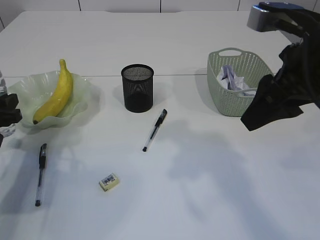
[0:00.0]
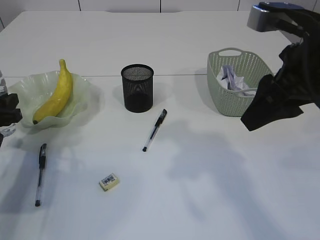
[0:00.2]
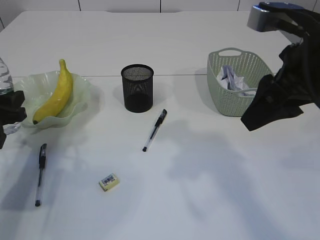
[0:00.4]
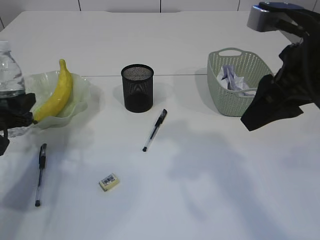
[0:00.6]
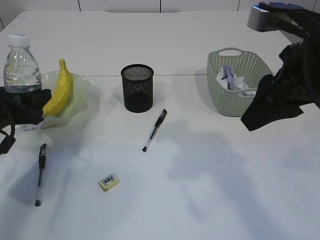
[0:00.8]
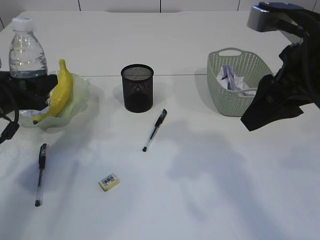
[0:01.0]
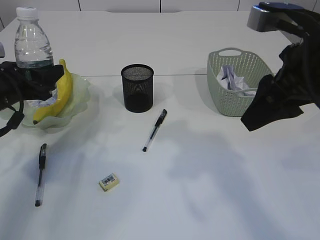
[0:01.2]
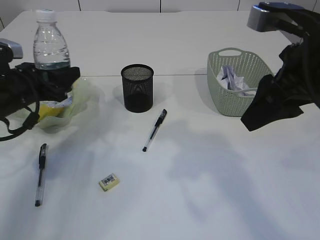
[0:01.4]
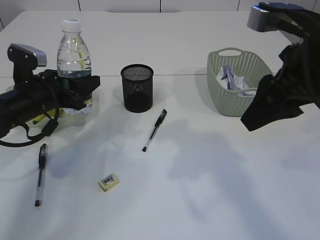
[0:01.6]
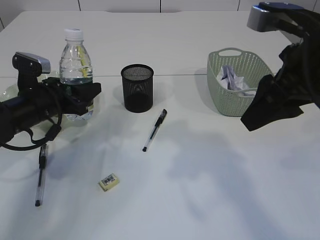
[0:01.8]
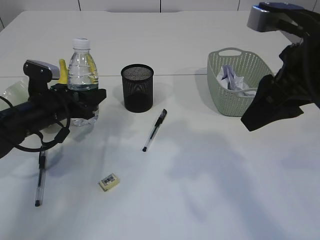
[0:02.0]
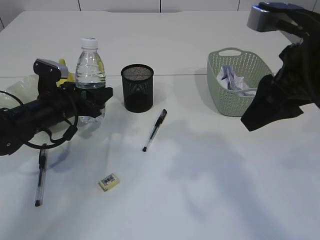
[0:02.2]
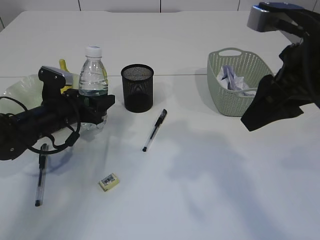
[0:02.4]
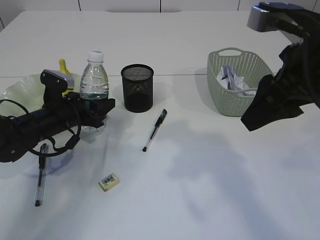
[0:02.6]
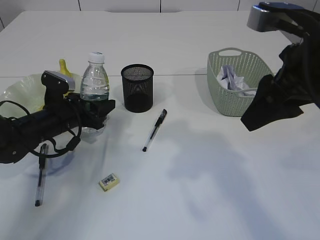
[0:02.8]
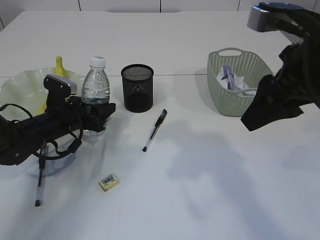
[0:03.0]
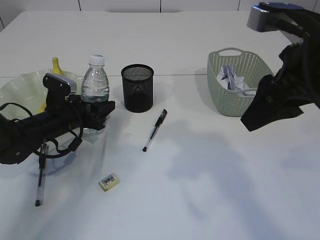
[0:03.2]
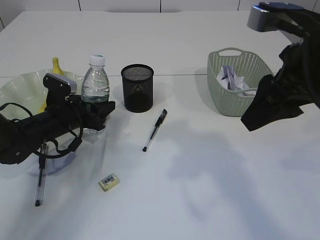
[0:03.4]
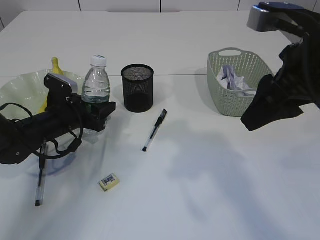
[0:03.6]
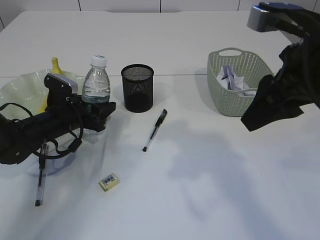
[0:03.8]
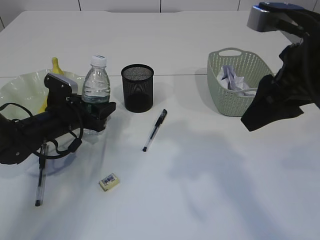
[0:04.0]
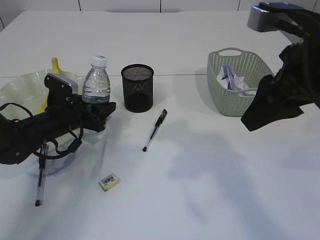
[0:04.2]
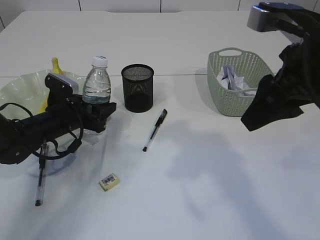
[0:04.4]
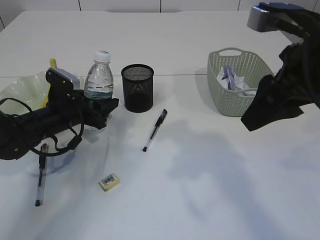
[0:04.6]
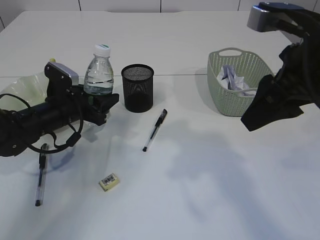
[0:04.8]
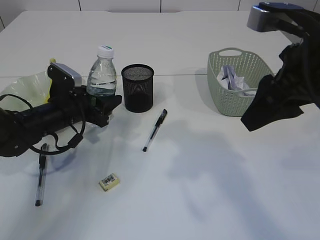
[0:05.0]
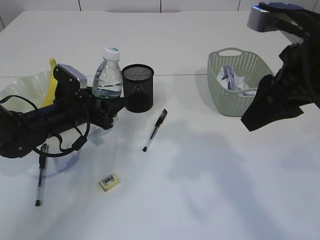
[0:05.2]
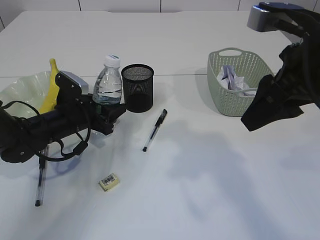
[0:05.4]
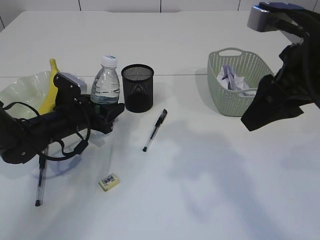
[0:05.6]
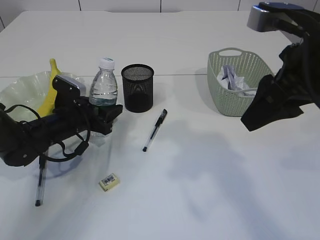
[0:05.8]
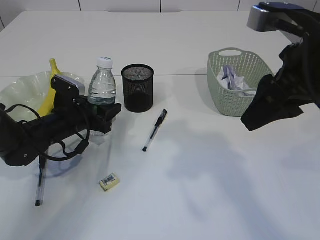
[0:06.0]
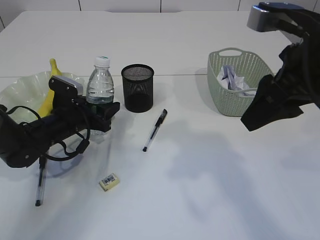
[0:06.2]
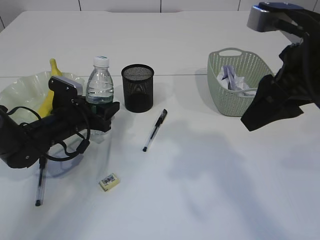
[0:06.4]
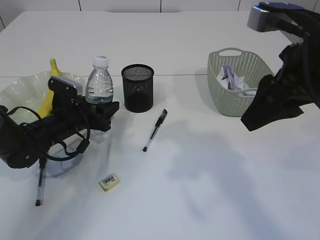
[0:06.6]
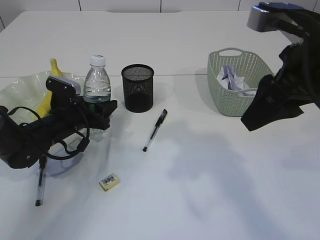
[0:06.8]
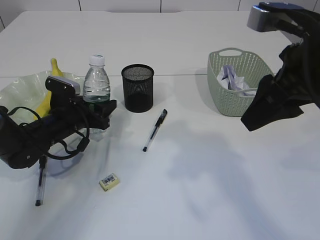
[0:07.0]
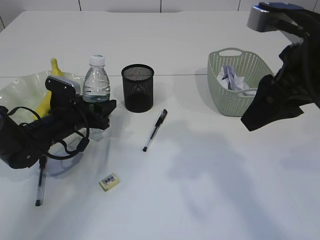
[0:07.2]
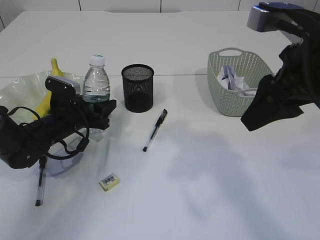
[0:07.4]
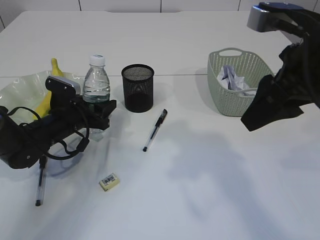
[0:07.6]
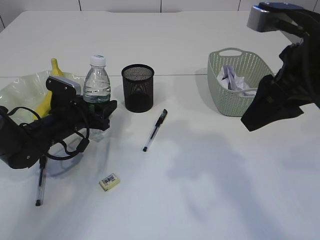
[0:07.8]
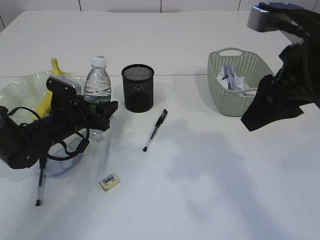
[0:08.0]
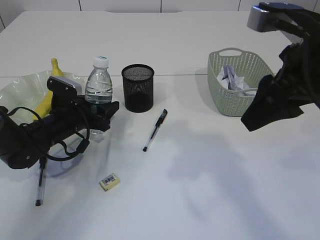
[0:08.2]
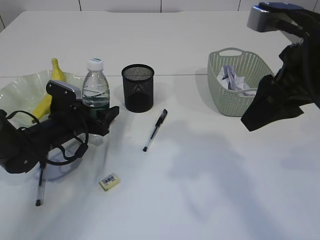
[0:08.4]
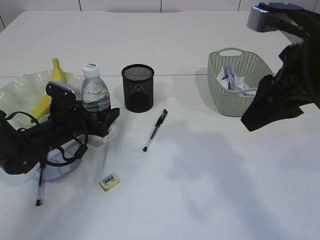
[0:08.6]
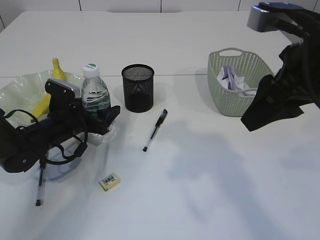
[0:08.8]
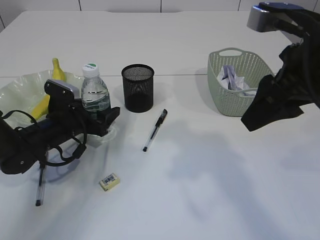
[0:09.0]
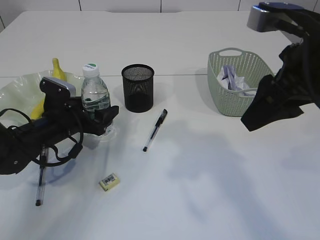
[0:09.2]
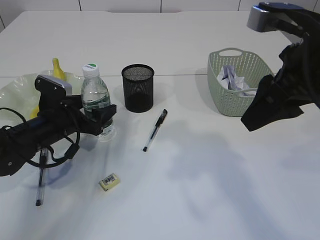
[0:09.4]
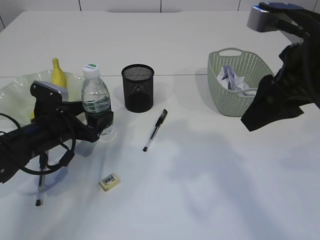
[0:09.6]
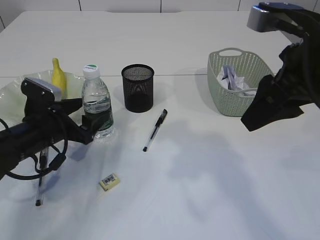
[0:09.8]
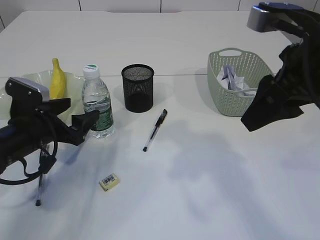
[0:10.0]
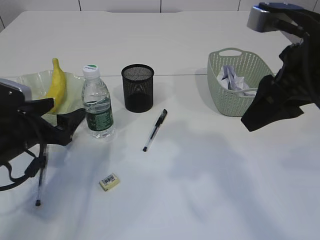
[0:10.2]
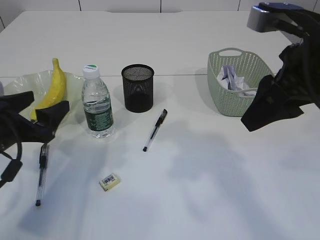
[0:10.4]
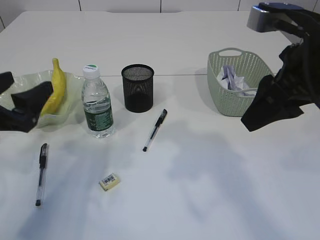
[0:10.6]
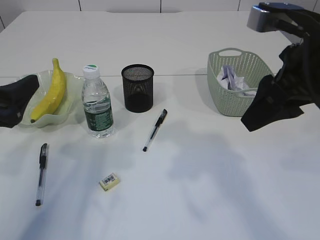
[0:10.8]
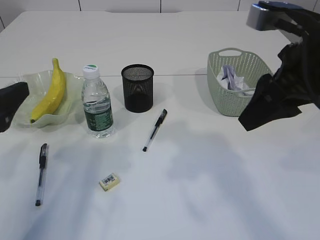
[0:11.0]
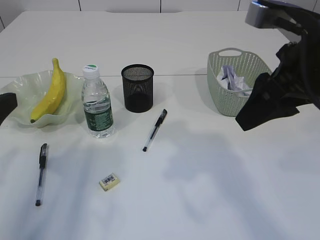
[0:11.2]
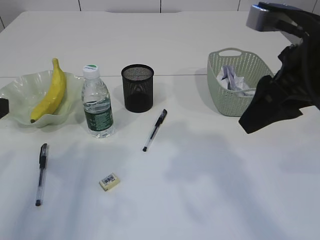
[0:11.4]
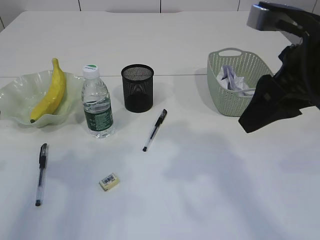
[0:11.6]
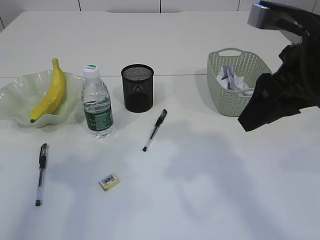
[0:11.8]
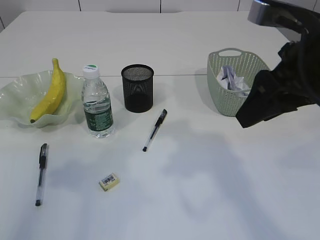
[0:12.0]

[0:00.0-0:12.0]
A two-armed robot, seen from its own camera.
Step, 0:00.0 to 0:10.2: Place the bottle.
0:00.0 to 0:01.6: The left gripper moves to the right and forward, approximately 10 cm.
0:01.6 to 0:03.0: The left gripper travels downward by about 10 cm.
0:03.0 to 0:04.4: Neither gripper changes place.
0:04.4 to 0:07.6: The grippers move only a little.
0:07.6 to 0:09.0: The left gripper opens its fingers.
0:09.0 to 0:10.4: The left gripper is displaced backward and upward by some 15 cm.
0:10.4 to 0:12.0: The left gripper moves upward and backward, about 20 cm.

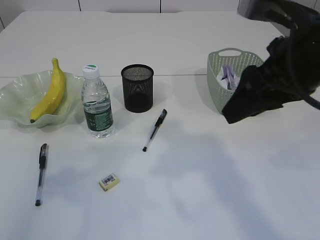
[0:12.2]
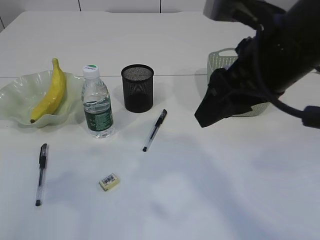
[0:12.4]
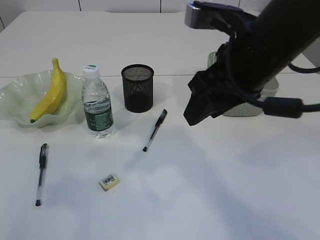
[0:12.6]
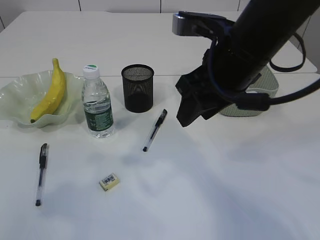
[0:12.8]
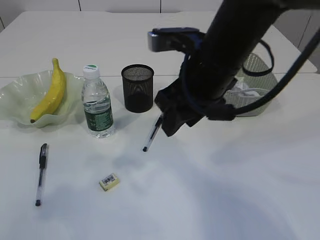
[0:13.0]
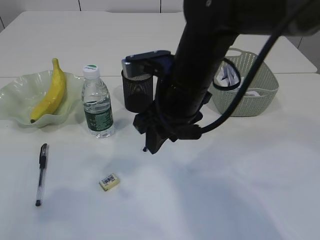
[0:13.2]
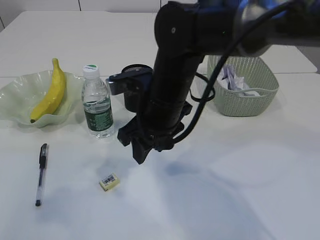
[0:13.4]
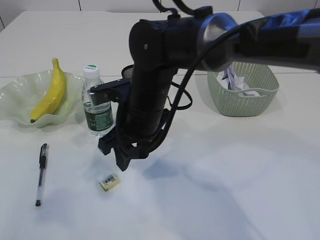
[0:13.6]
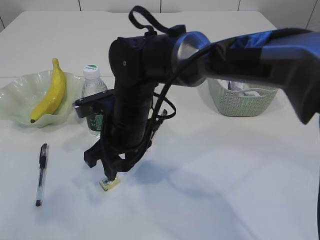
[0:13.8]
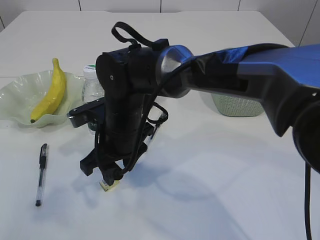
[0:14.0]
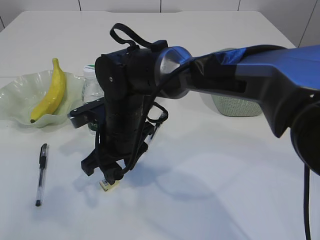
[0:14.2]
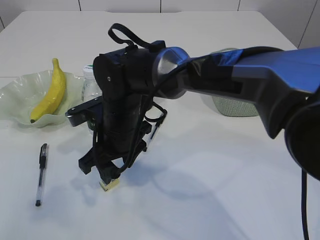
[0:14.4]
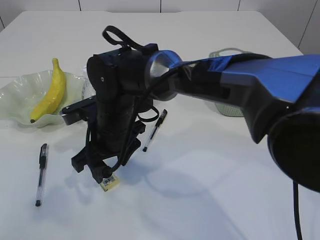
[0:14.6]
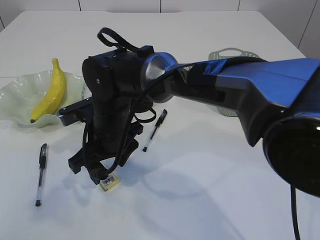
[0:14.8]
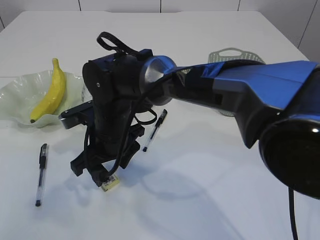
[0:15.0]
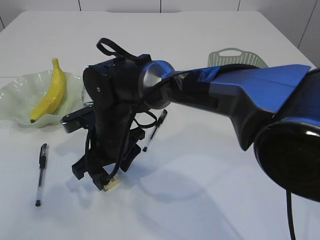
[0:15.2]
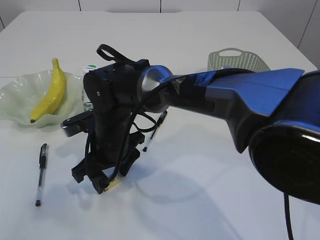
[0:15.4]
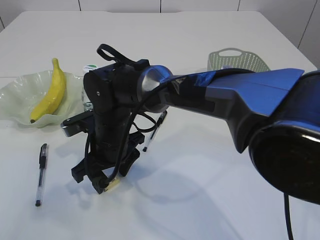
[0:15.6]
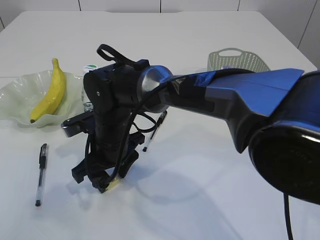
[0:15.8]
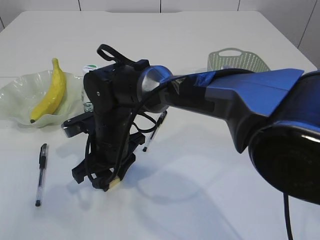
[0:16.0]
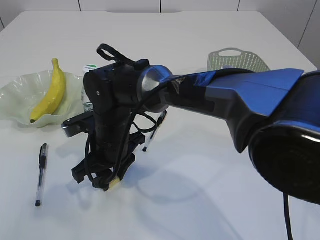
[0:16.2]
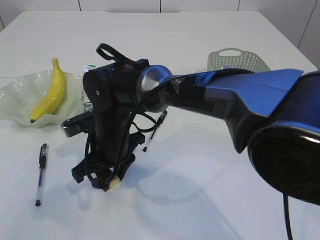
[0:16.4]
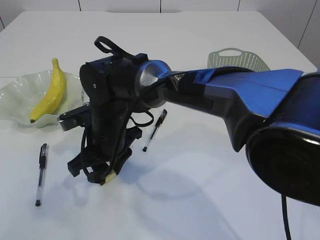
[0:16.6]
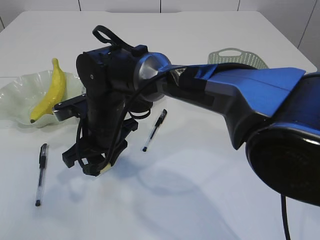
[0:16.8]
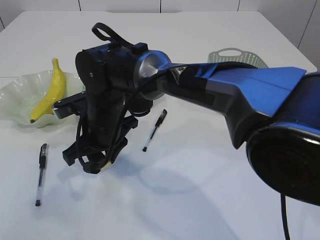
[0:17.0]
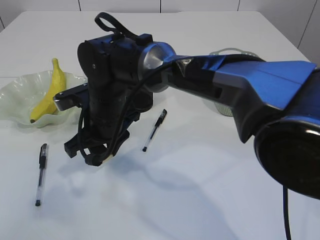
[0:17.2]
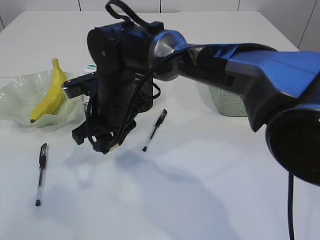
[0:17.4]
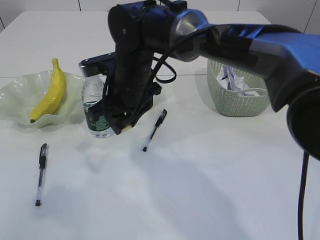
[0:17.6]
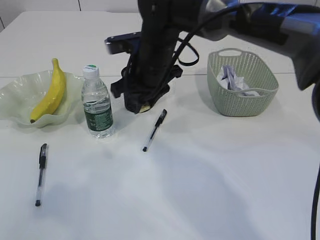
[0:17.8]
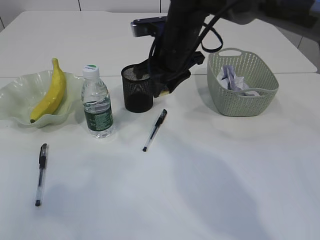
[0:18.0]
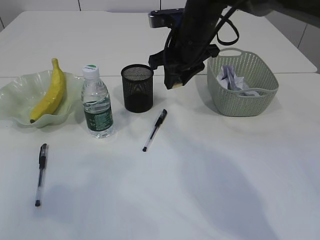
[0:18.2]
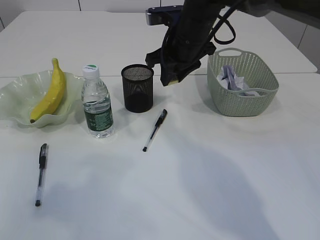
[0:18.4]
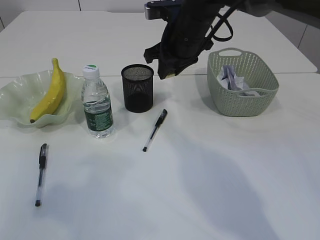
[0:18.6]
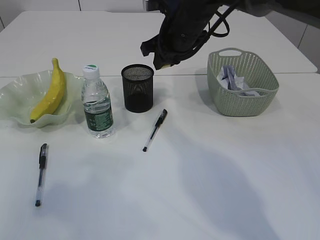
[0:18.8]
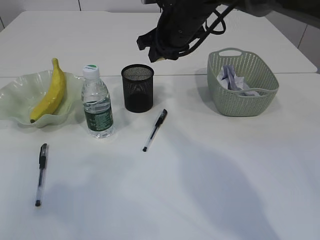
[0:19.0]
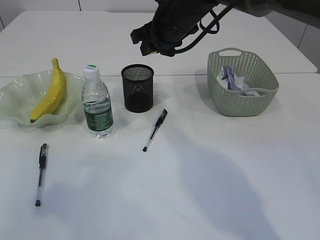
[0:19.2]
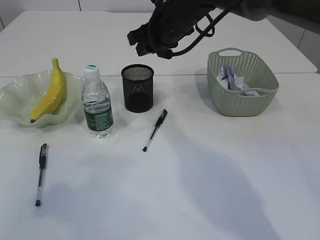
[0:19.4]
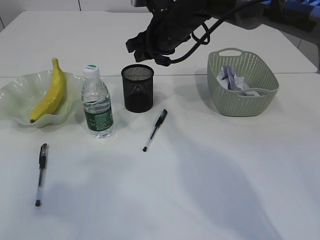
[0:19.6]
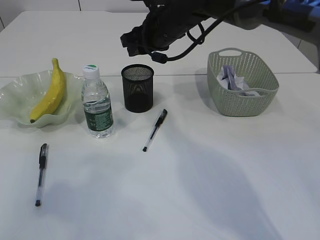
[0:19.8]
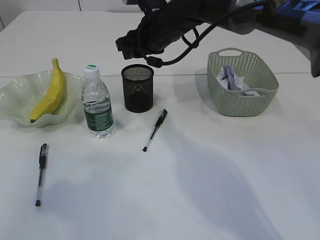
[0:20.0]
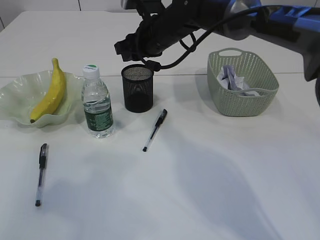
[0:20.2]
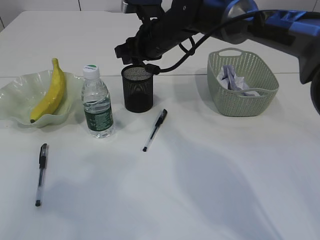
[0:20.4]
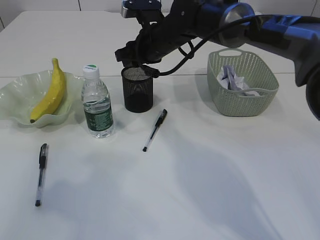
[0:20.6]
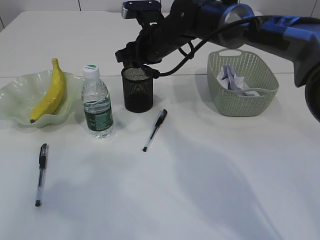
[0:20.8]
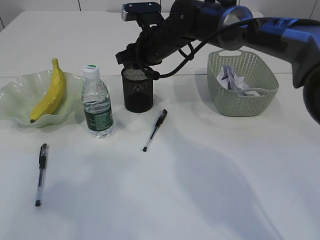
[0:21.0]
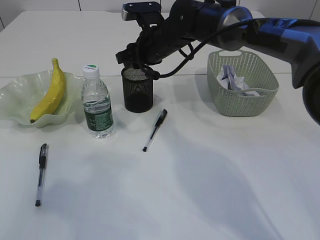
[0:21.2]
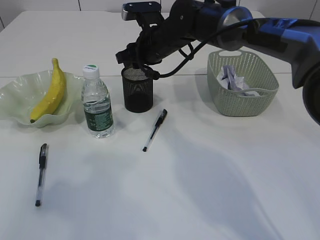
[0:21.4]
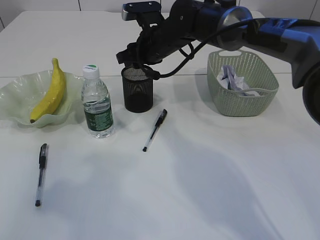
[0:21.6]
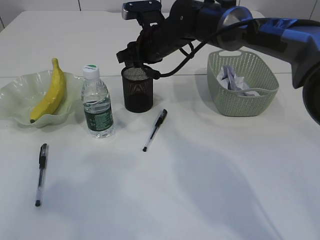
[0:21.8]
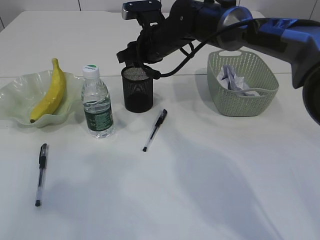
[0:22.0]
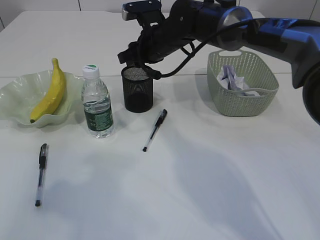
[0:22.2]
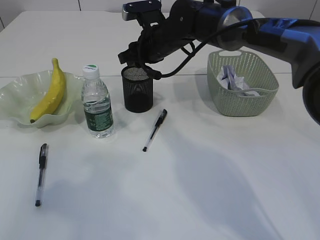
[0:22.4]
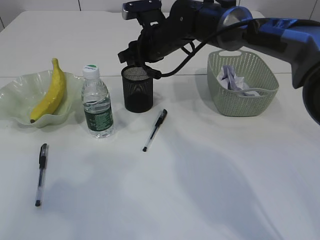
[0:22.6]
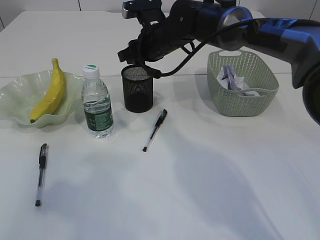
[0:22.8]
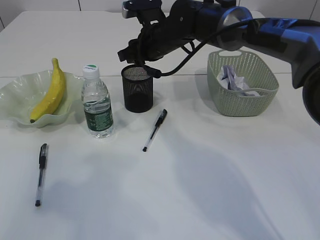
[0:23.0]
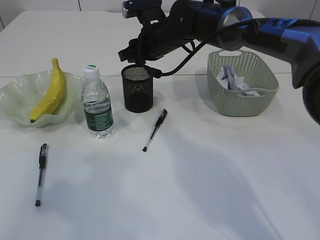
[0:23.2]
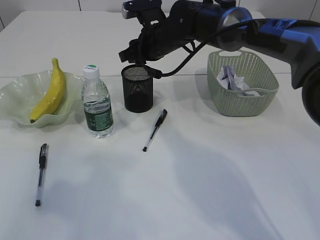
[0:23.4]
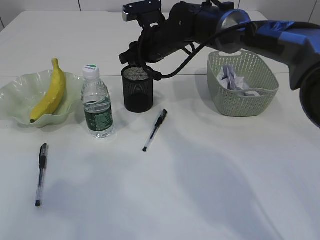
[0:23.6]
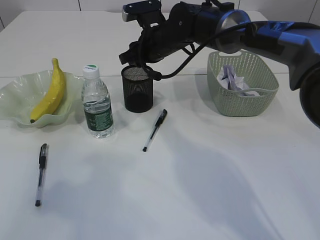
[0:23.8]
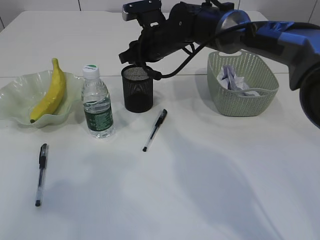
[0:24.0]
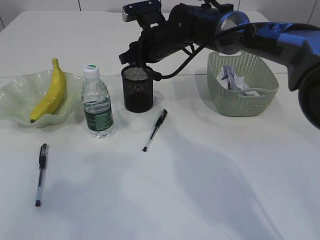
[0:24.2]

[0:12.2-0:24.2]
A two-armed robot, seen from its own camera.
Step, 0:12.2 to 0:17.4: Pick up the eraser.
0:12.2 to 0:13.8: The right gripper goes some 25 cm to the left and downward.
0:15.2 to 0:16.6: The right gripper closes up.
0:16.6 to 0:18.2: The right gripper goes some 20 cm to the right, upward and forward.
0:19.8 to 0:21.2: The grippers make only small movements.
0:21.2 to 0:22.6: Neither gripper changes place.
0:22.6 to 0:24.2: Both grippers stay put.
